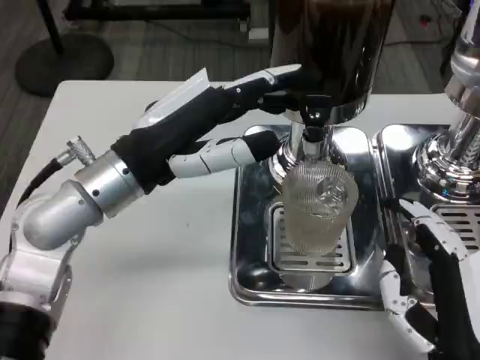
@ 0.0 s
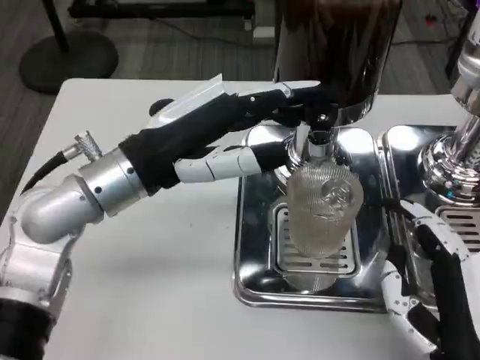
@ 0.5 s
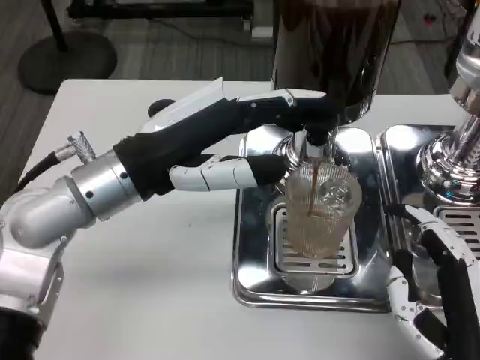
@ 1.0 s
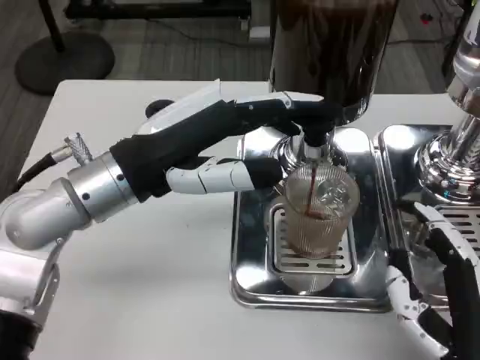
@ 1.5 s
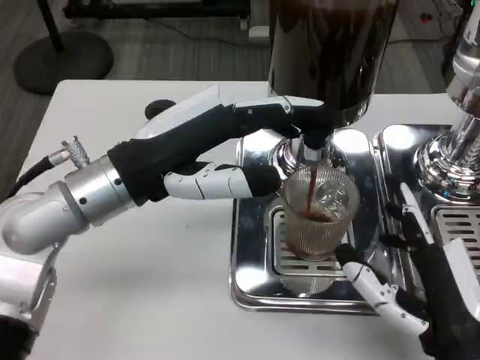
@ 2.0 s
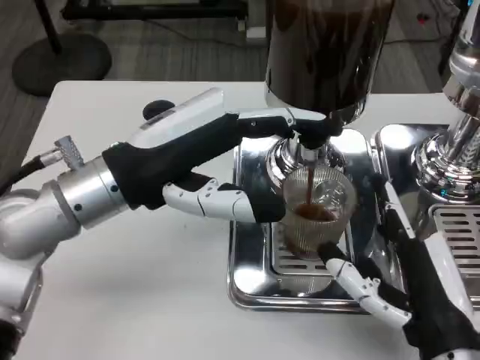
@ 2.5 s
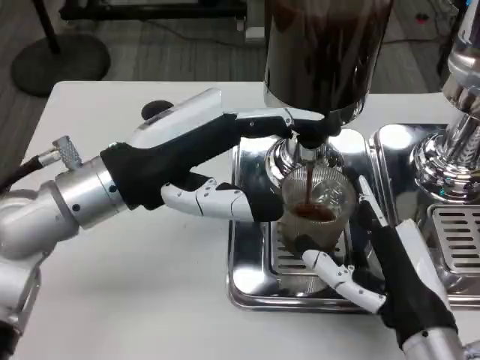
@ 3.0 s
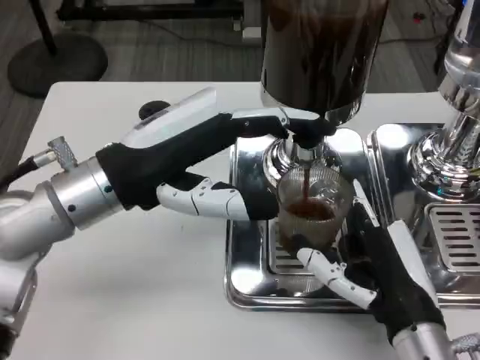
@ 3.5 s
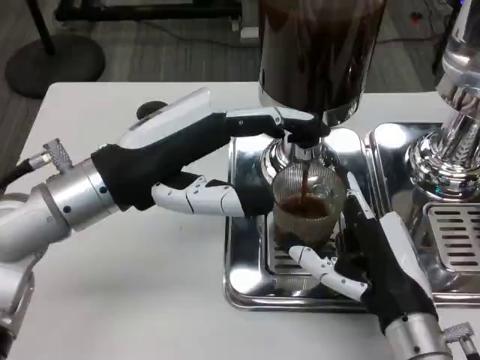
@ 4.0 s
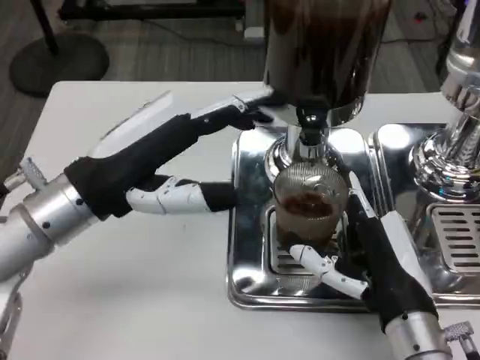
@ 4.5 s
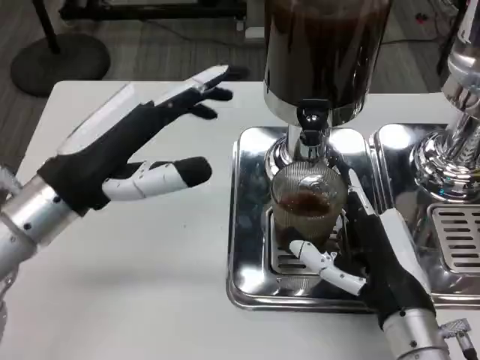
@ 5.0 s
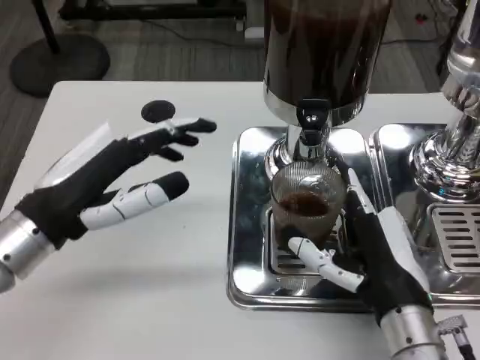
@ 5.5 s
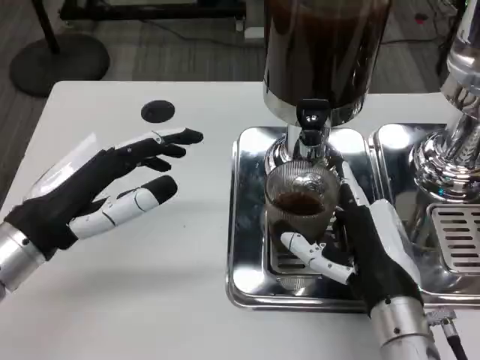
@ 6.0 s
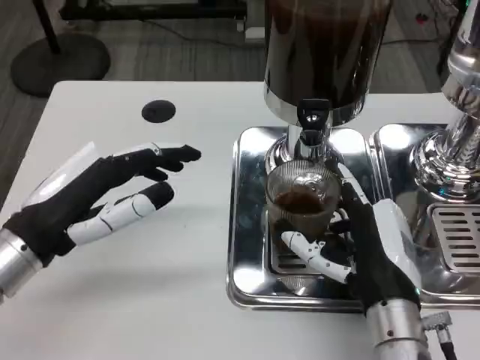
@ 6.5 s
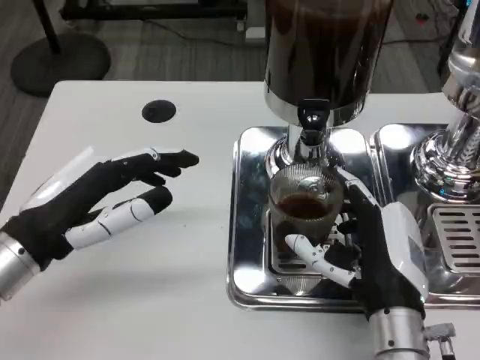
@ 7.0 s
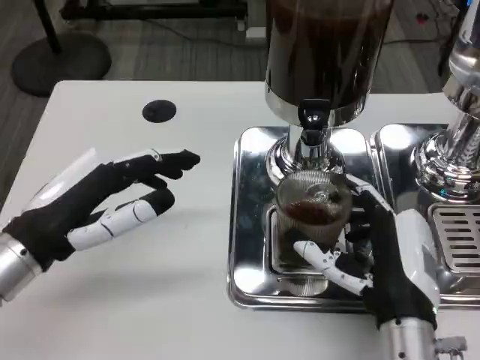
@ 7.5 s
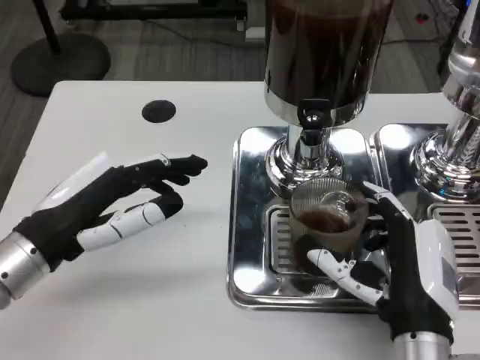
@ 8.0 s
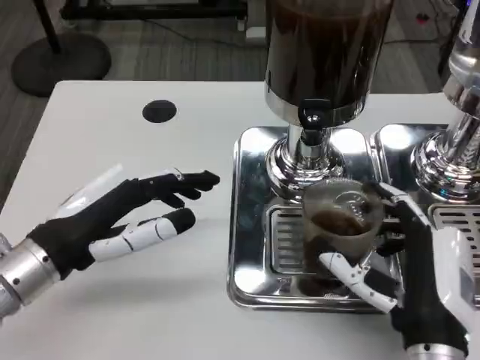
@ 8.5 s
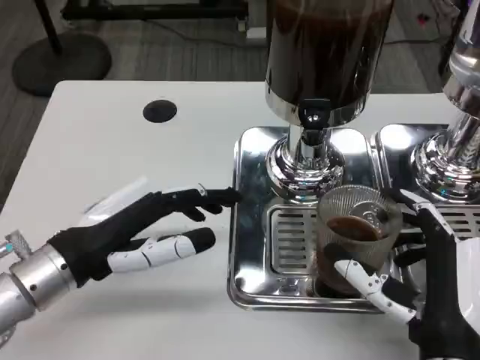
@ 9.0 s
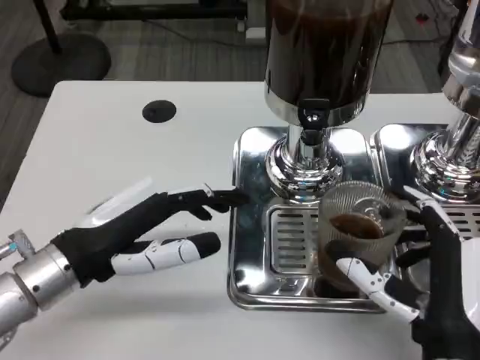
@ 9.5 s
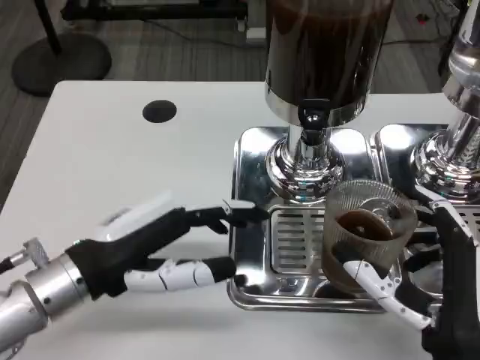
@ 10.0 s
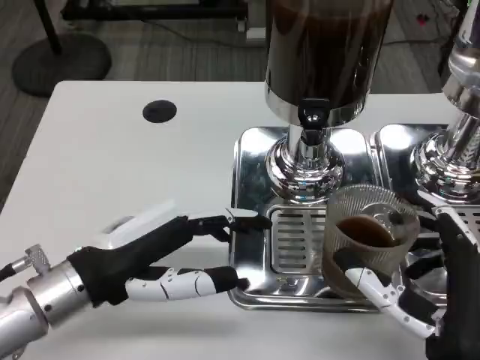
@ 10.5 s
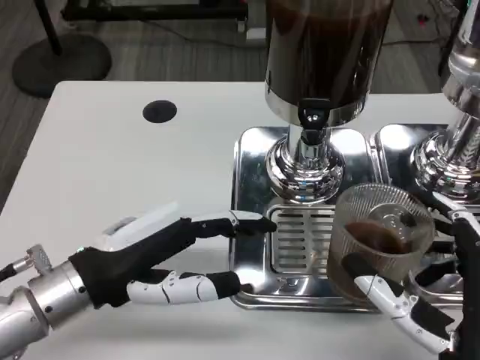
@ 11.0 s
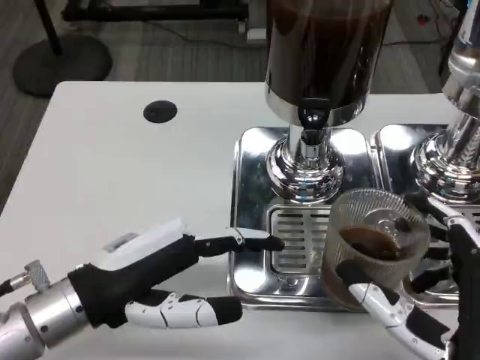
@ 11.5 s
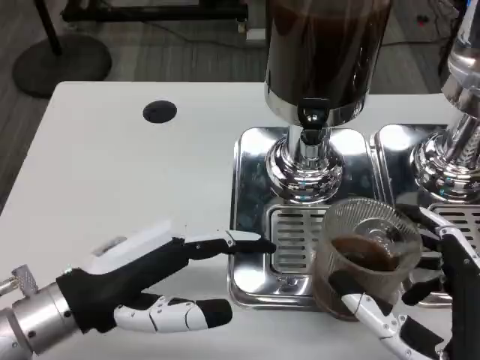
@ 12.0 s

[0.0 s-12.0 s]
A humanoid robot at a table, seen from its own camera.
Task of the whole recording: Grasp the cup under the faucet to collect the drink, then remove the cup.
2.0 to 4.0 s: The right hand changes place by about 5 cm.
4.0 to 6.0 s: The left hand shifts some 10 cm to the left and downward.

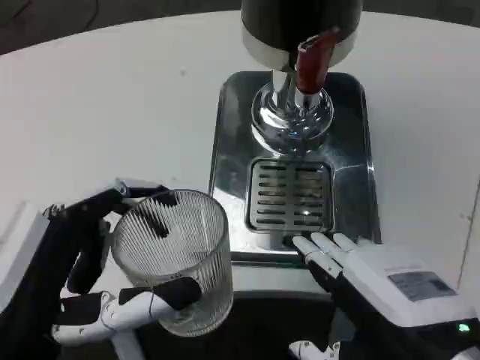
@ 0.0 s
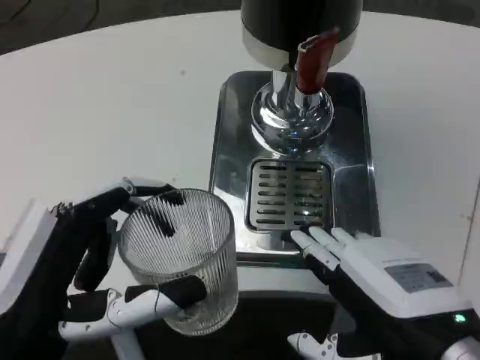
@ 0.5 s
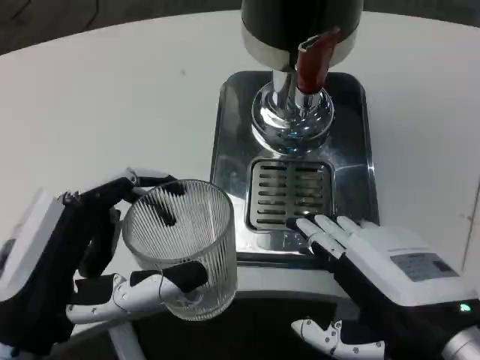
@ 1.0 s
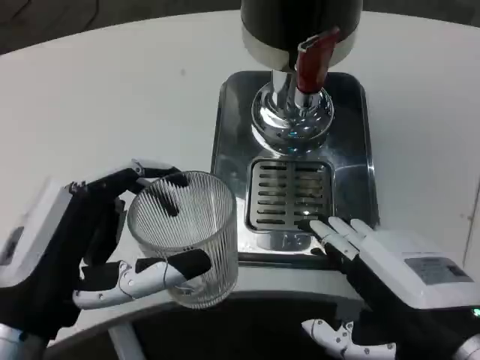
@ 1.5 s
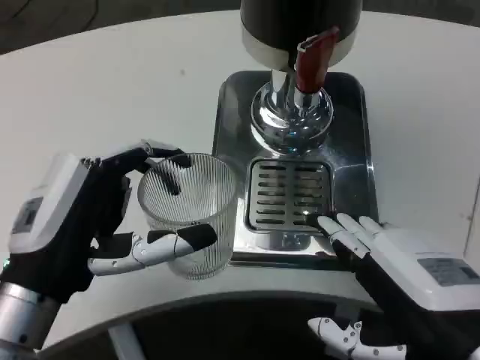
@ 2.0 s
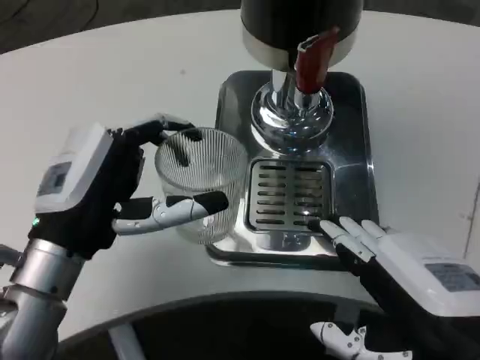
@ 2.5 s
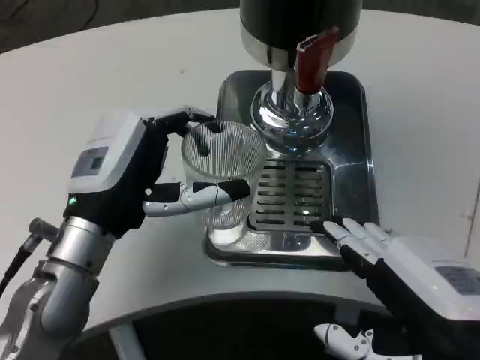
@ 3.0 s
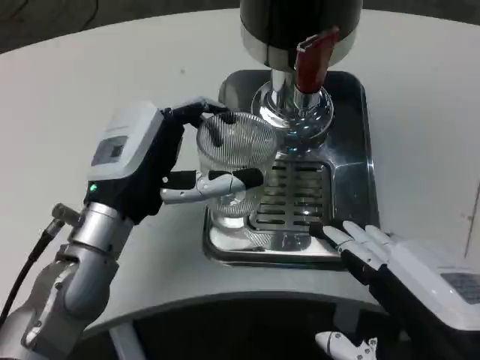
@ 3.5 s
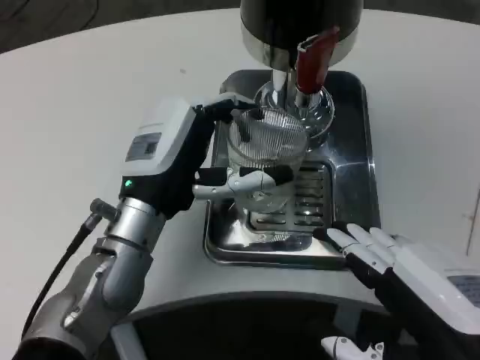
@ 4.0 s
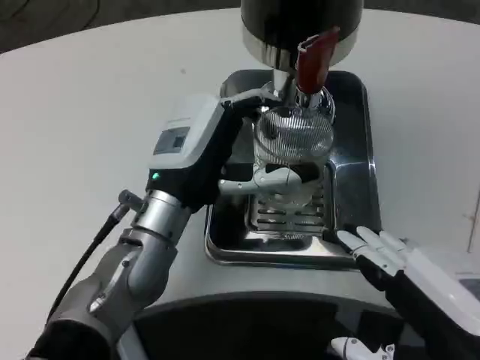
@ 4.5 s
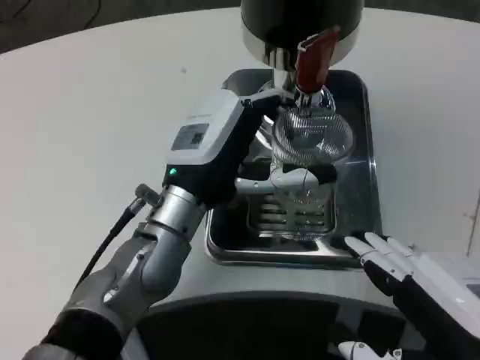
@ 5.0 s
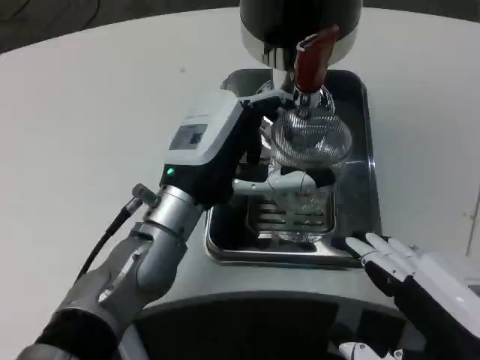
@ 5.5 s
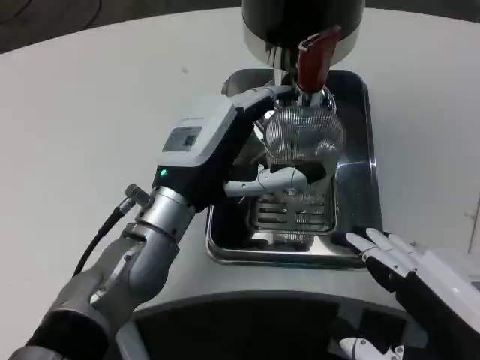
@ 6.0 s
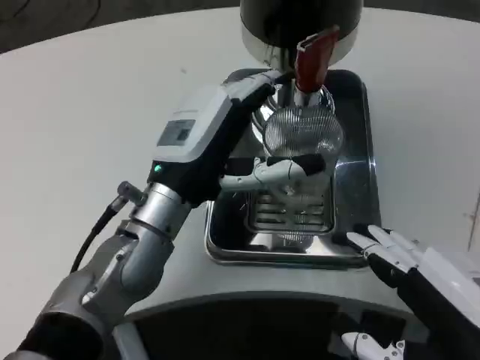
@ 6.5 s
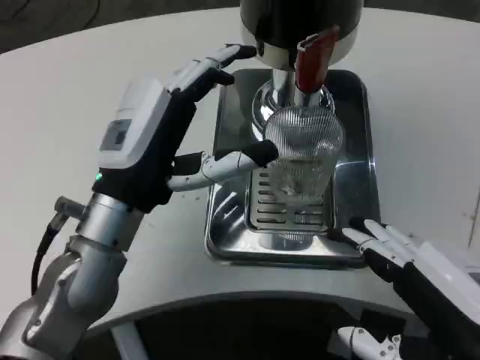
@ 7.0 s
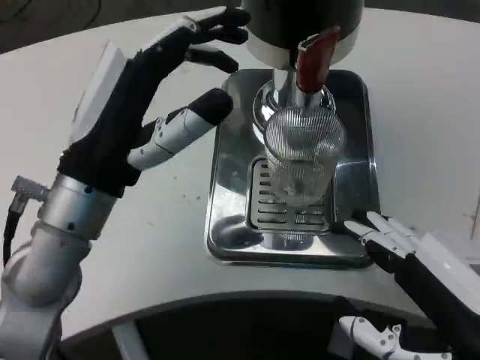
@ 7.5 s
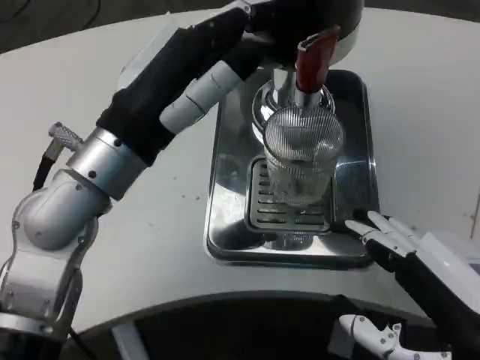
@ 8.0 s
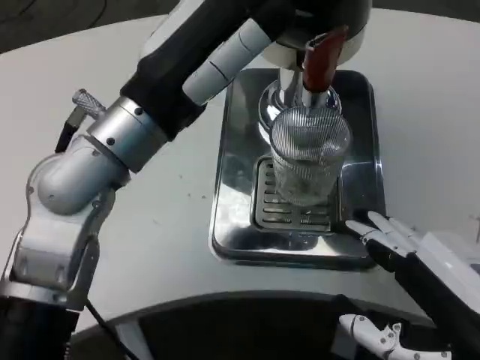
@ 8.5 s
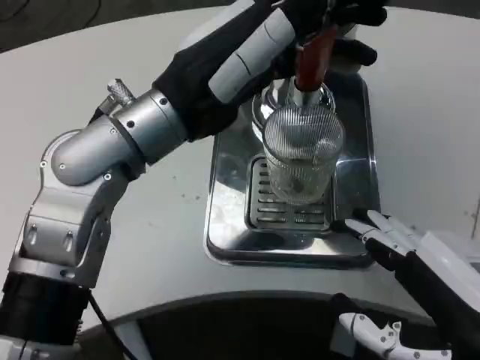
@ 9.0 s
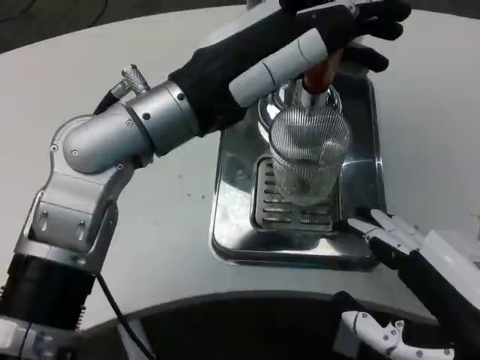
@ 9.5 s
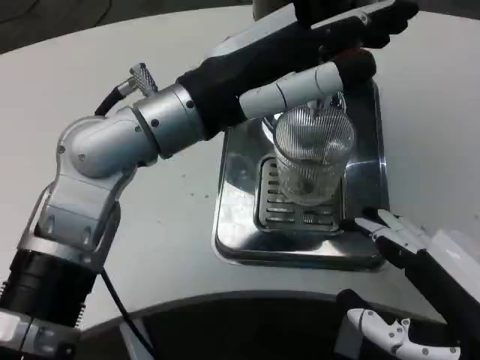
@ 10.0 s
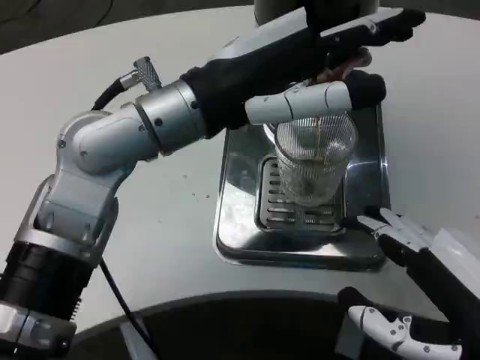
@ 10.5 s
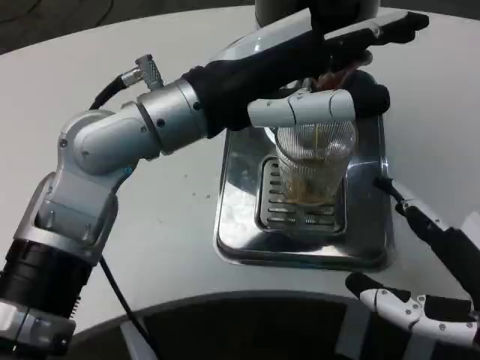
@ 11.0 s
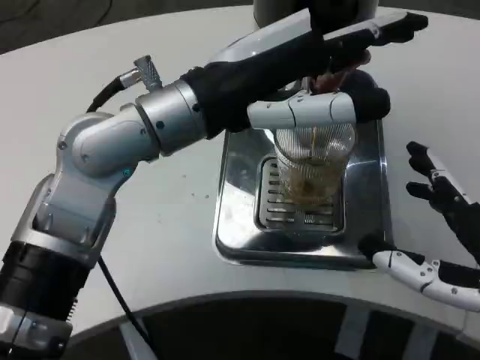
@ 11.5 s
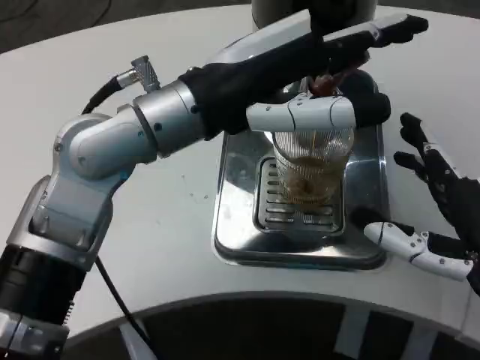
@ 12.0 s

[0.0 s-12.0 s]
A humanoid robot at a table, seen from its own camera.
Task of the whole recording: Grasp the cup under the faucet to collect the drink, then remove the cup.
0.0 to 2.0 s: The left hand shifts some 5 cm forward.
2.0 to 4.0 s: The left hand is displaced forward and to the right by about 15 cm.
6.0 to 8.0 s: The left hand travels upward by roughly 10 cm.
8.0 to 10.0 s: The left hand changes place by about 5 cm.
10.0 to 12.0 s: The right hand moves forward, some 5 cm.

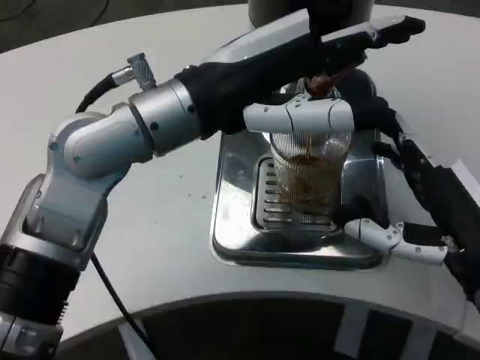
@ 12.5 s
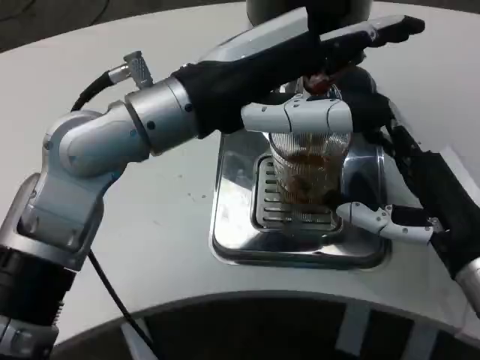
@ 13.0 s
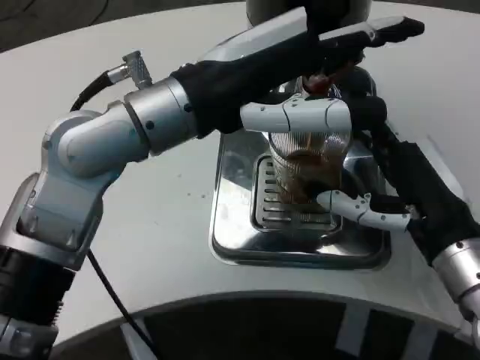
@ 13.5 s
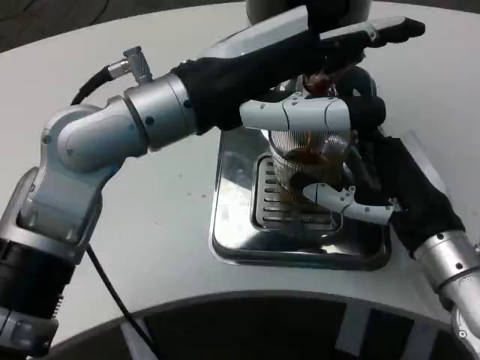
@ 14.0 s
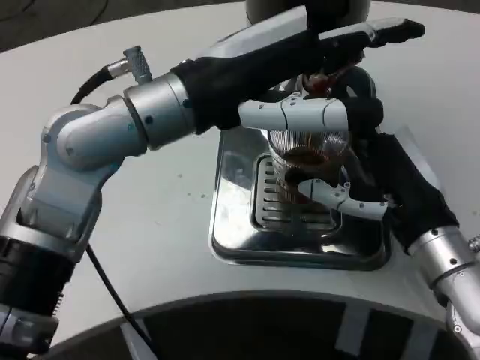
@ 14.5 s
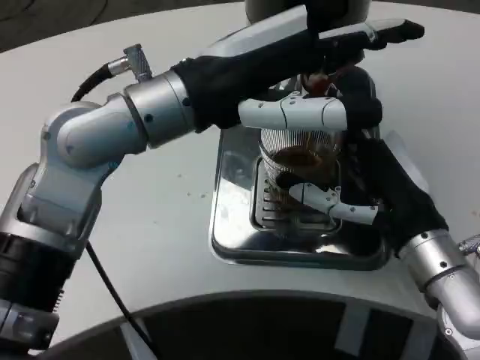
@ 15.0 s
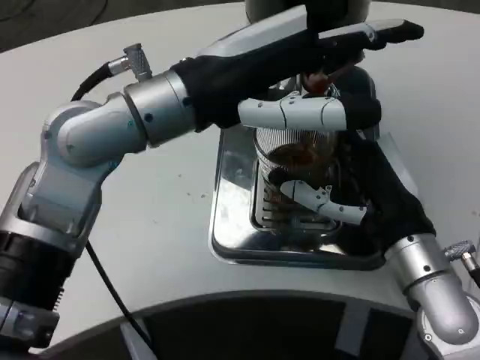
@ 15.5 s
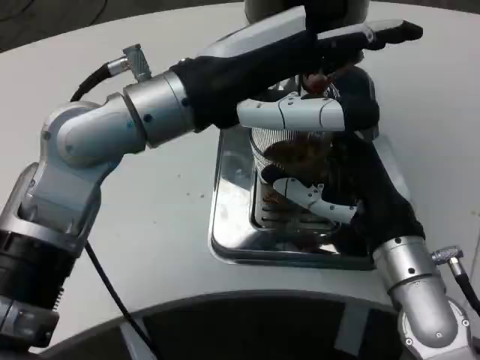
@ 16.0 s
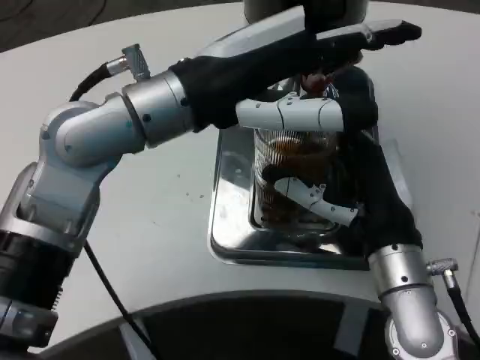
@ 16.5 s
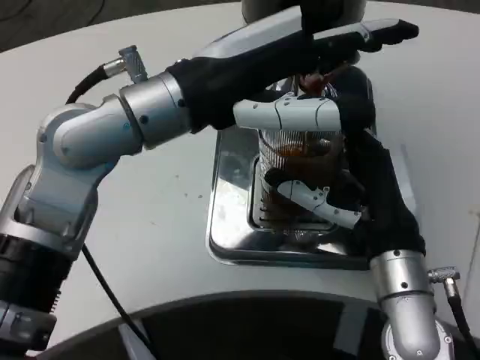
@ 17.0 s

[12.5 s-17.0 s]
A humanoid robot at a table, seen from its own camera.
Task of the whole recording: Grasp the cup under the faucet to collect the drink, then remove the cup.
12.5 to 14.5 s: The right hand travels forward by about 5 cm.
14.5 to 17.0 s: The right hand moves to the left, some 5 cm.
